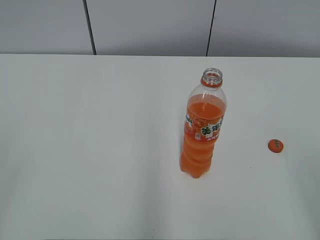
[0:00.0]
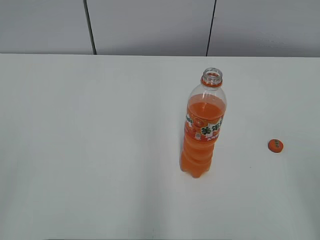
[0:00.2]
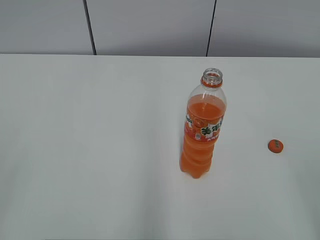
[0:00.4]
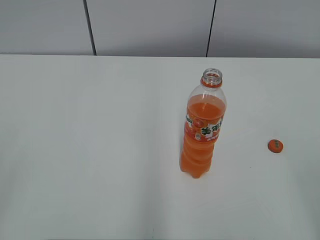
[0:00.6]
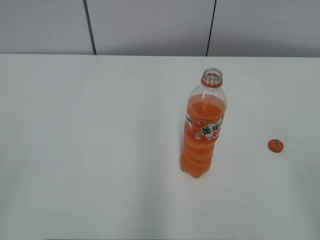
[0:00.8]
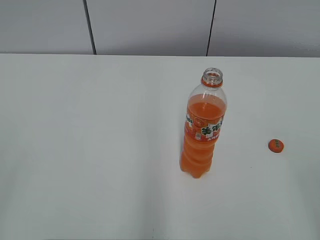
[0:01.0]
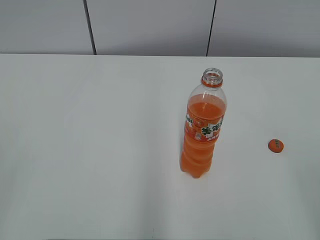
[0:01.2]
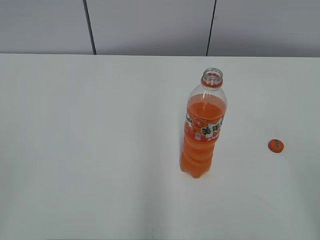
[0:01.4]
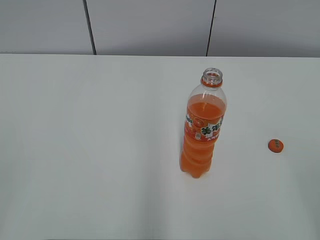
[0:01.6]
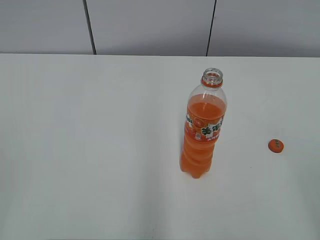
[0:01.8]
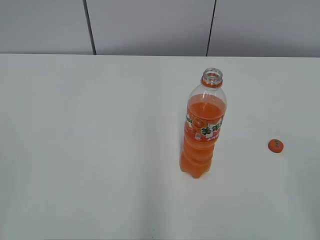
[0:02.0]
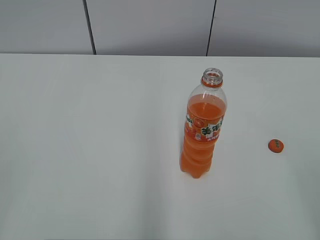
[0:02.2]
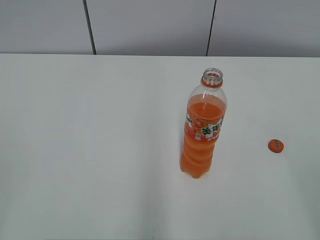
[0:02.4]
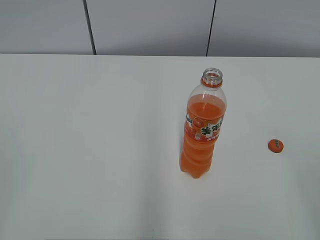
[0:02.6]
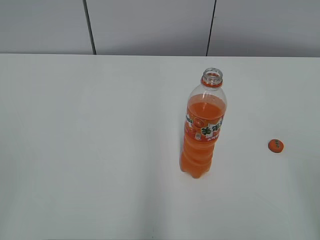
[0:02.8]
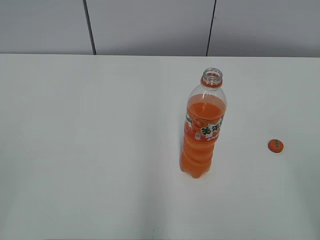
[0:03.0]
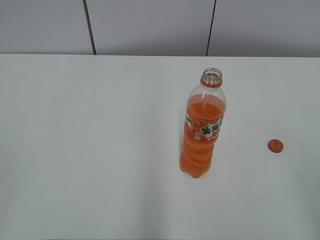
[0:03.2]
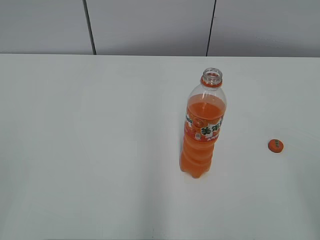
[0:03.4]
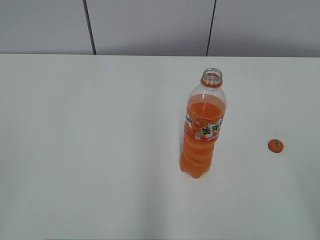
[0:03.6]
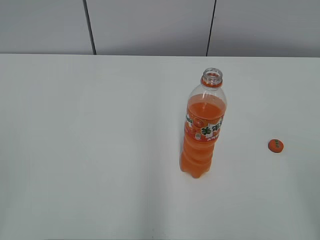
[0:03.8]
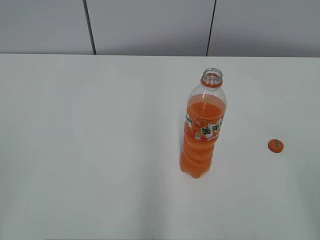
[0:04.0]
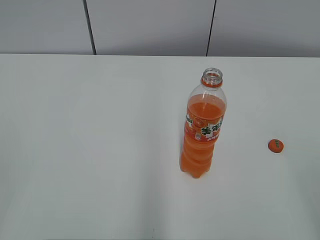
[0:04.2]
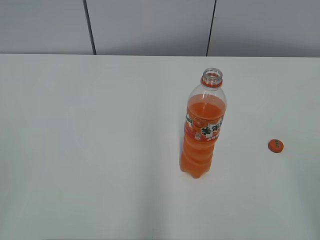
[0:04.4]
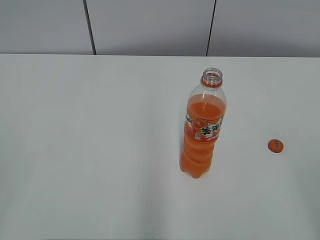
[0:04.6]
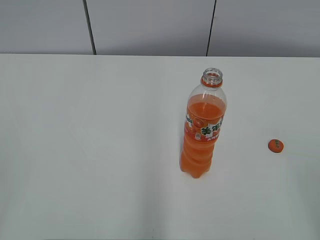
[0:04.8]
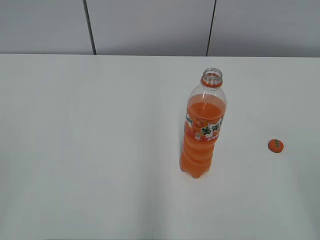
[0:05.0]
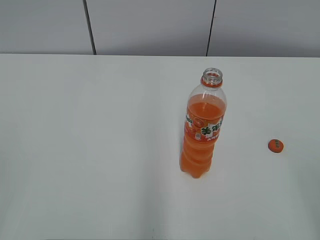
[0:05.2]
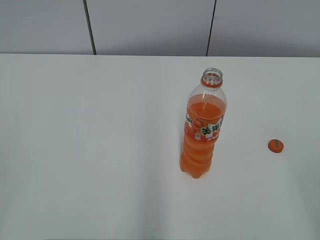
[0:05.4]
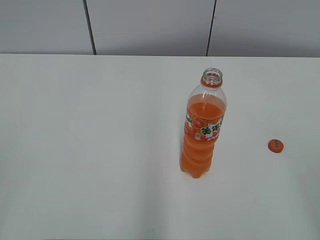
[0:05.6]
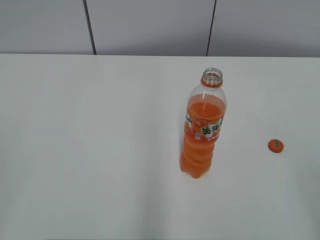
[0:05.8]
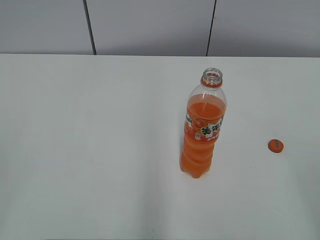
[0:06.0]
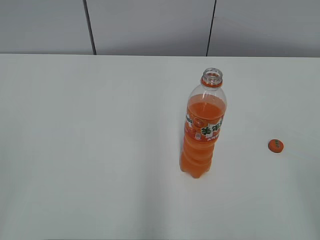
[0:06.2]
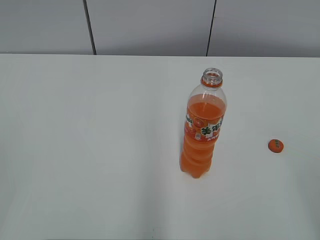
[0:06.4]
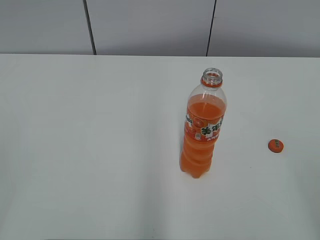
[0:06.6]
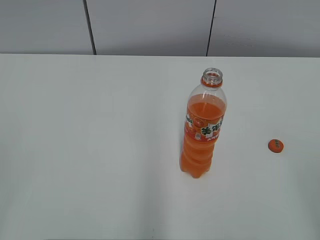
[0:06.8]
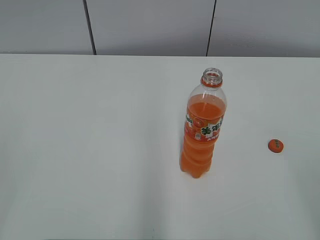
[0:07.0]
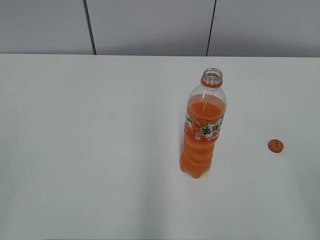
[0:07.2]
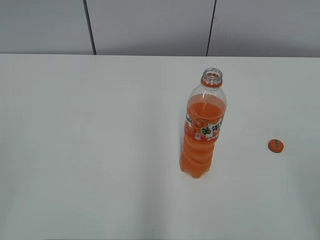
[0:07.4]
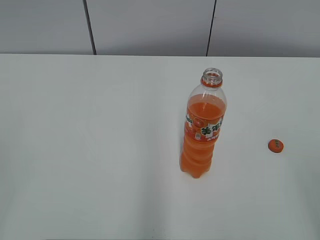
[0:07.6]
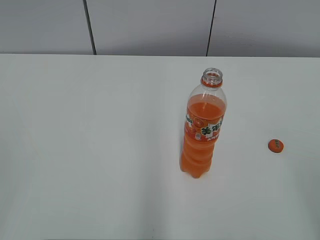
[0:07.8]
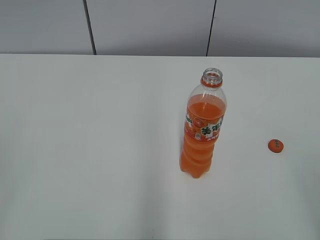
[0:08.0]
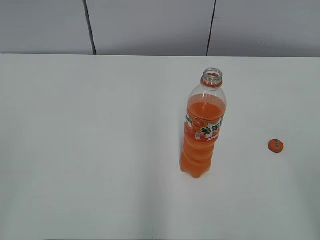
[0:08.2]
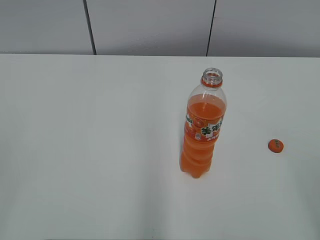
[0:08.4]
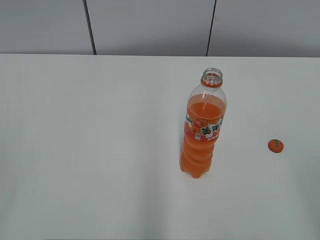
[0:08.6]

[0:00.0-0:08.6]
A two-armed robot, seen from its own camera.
1.4 to 8.6 s: The two grippers keep their place.

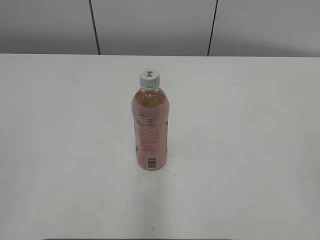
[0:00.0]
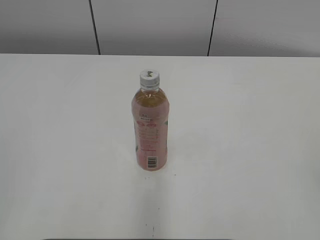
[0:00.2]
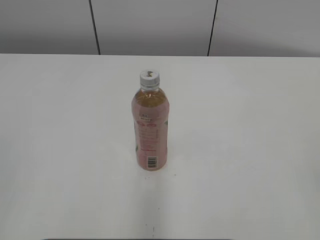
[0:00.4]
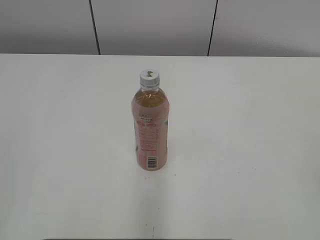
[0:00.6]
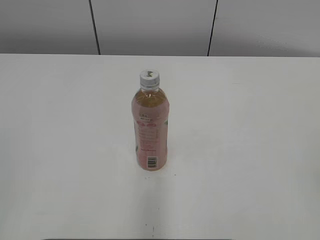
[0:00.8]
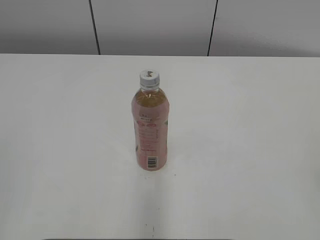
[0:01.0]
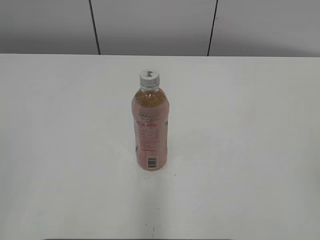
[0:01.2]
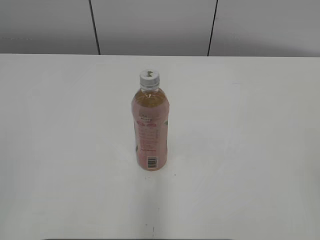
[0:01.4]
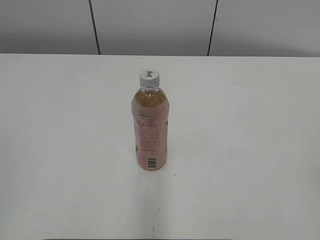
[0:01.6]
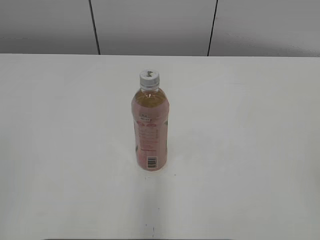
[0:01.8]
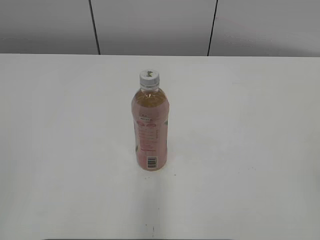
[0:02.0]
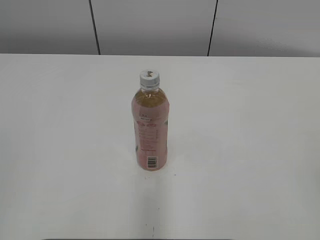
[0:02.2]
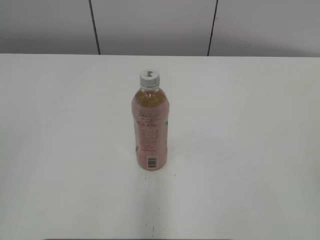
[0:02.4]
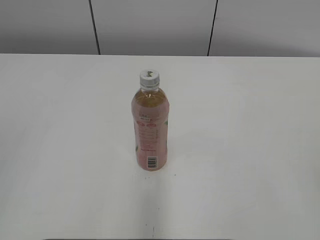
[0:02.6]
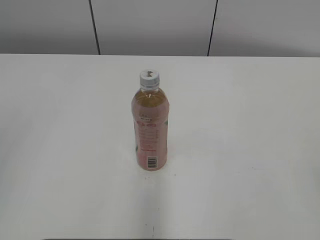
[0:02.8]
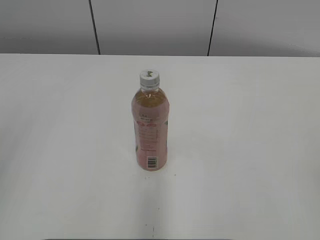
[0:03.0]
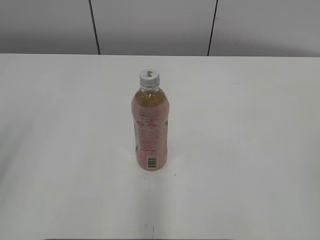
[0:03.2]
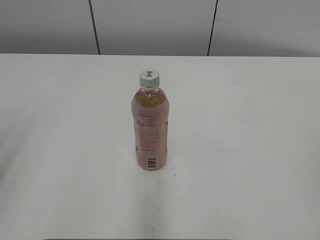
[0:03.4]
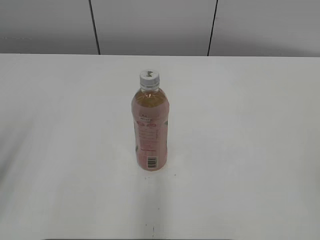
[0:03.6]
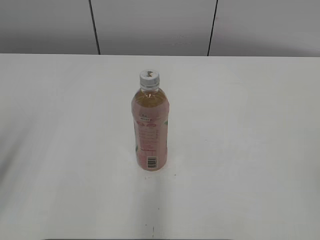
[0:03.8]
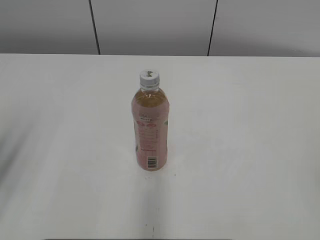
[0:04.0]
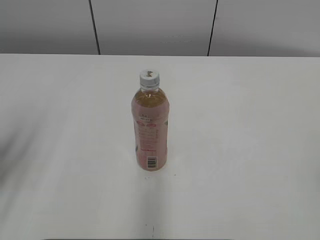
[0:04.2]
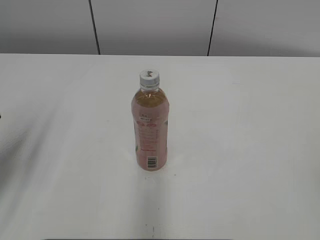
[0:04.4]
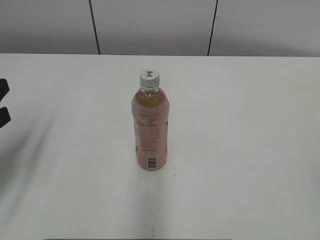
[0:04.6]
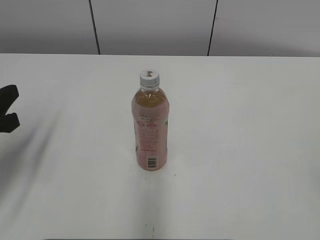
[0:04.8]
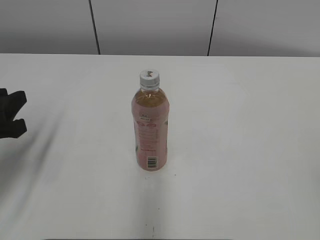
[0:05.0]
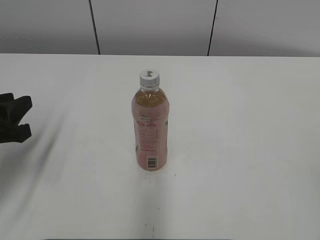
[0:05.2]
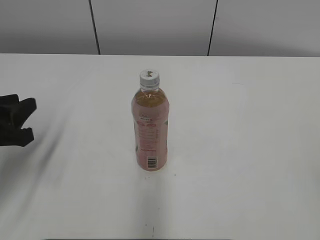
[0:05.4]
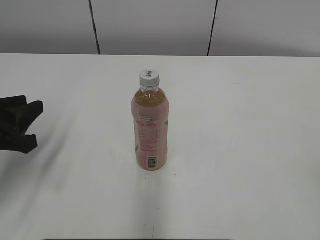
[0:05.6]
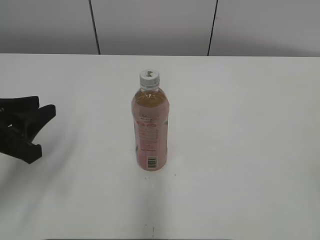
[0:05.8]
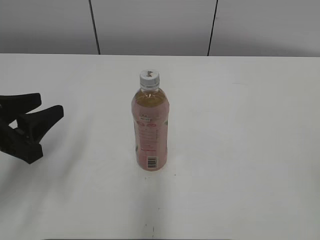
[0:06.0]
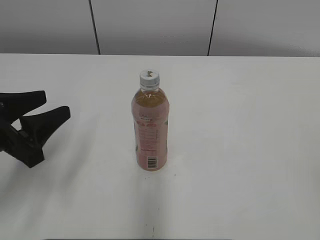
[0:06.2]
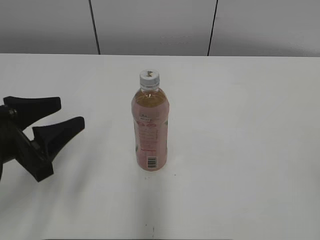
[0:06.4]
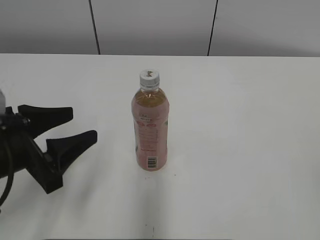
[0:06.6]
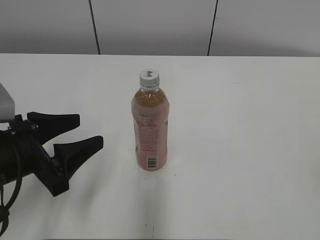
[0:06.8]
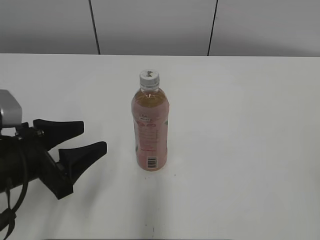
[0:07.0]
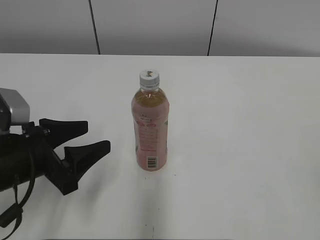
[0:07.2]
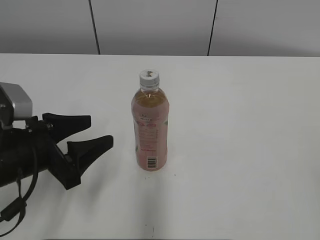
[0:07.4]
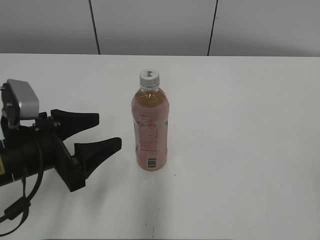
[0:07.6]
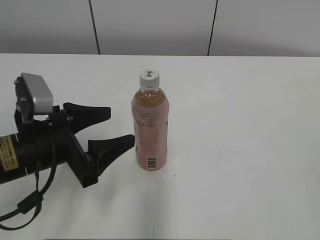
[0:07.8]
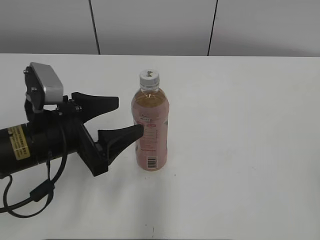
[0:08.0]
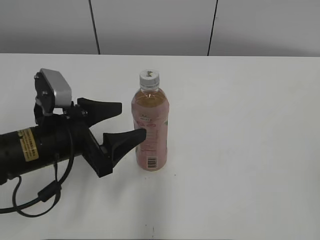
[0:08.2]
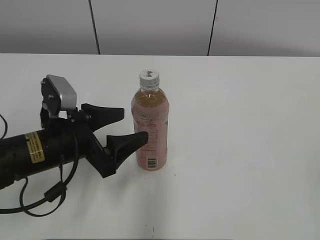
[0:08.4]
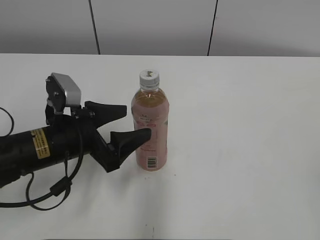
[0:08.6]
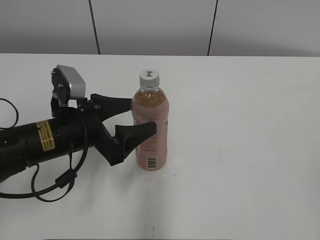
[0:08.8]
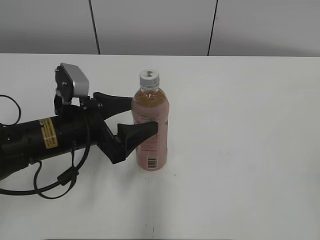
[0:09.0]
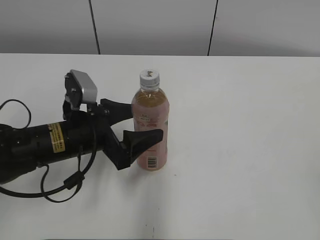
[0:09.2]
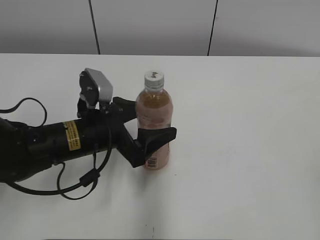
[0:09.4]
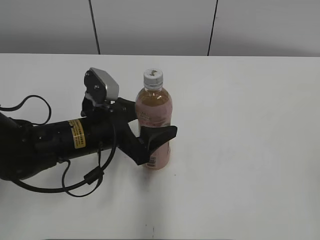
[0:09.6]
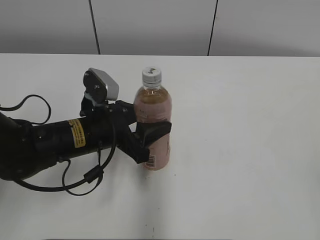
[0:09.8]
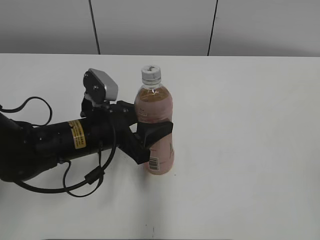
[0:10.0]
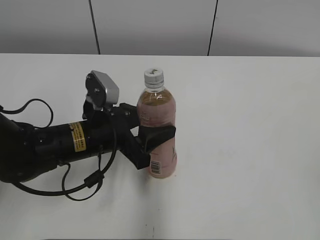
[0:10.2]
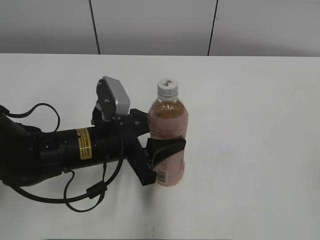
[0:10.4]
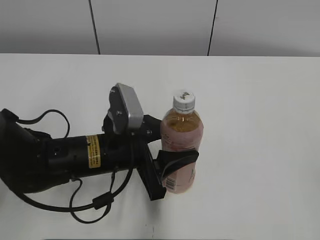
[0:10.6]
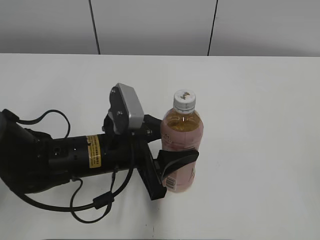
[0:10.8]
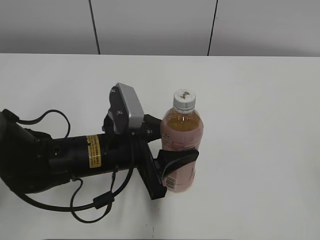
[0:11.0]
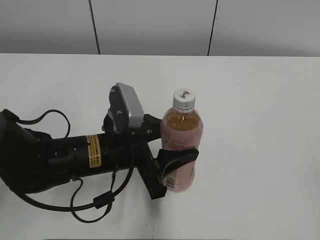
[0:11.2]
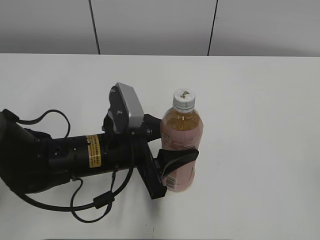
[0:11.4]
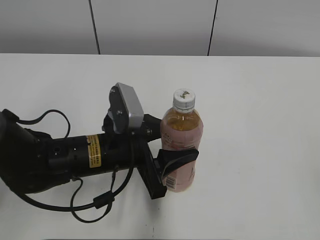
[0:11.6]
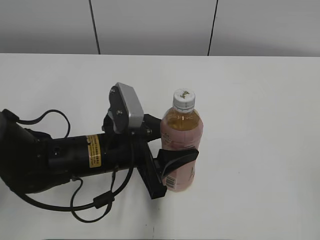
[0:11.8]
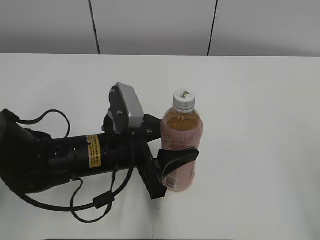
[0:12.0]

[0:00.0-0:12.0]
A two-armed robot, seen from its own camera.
Step, 0.0 to 9.6 s: Grab the Peach Oolong Tea with the left hand.
Step, 10.0 to 10.8 s: Move the Peach Oolong Tea from left to right.
3.0 to 4.4 s: The left gripper shifts about 15 cm forward and downward.
4.4 to 6.0 s: The left gripper ends up roughly 5 cm from where it was, and opens.
6.0 to 7.6 s: The left gripper heads to the right, covering approximately 5 cm, and opens.
7.6 to 9.0 s: The left gripper is displaced forward by approximately 5 cm.
9.0 to 10.4 s: The left gripper closes up.
10.4 to 12.0 s: The grippers make only small movements.

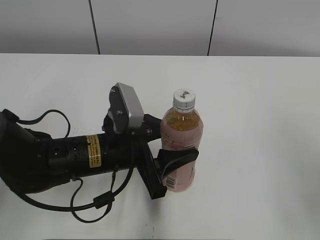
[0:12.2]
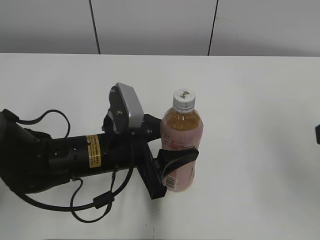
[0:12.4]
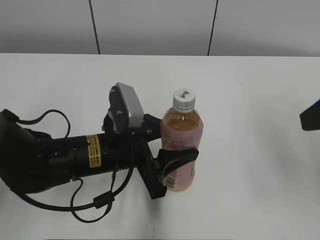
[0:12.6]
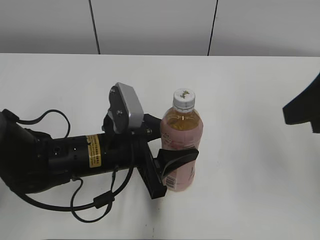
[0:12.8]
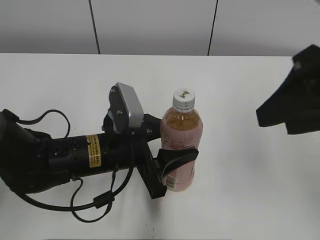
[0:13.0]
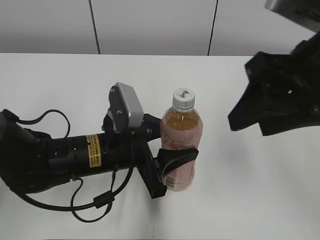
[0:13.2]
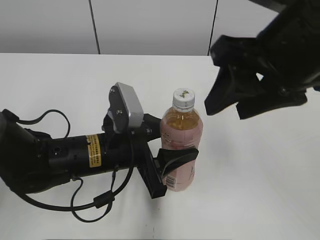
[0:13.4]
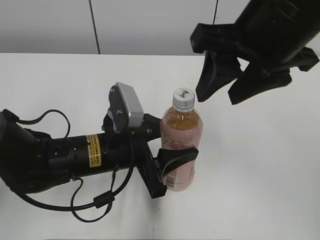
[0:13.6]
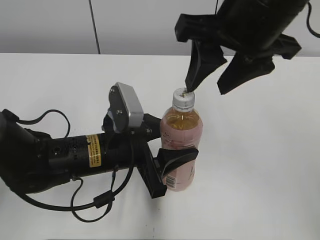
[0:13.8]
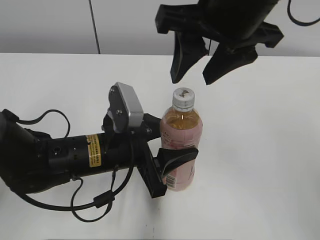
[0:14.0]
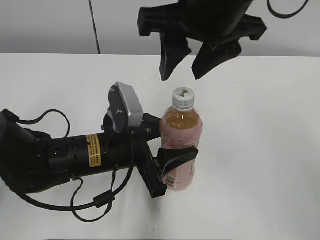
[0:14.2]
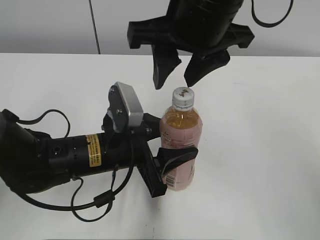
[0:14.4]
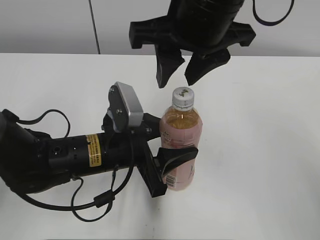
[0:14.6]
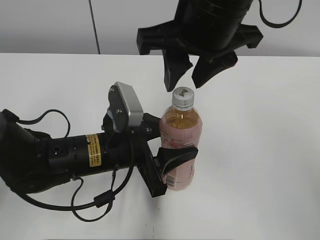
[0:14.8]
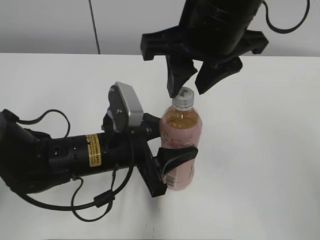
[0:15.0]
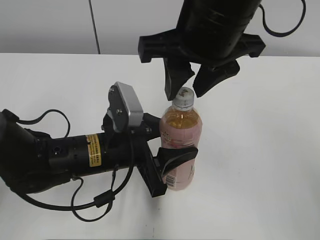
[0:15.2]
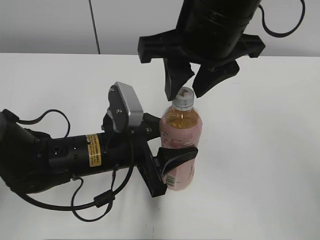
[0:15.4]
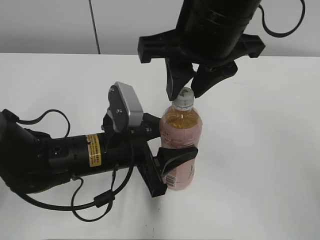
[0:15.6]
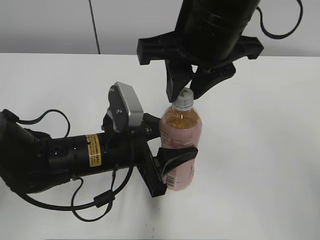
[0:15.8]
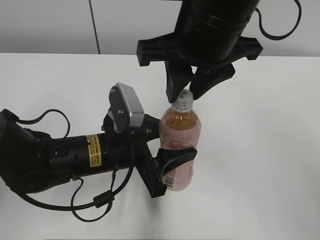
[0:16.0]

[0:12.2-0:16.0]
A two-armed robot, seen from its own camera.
12.2 to 13.4 s: The right gripper heads to the left and forward, covering approximately 20 cm.
13.4 to 14.8 s: The right gripper moves to the left, approximately 10 cm.
14.8 to 16.0 s: Both grippers stay put.
